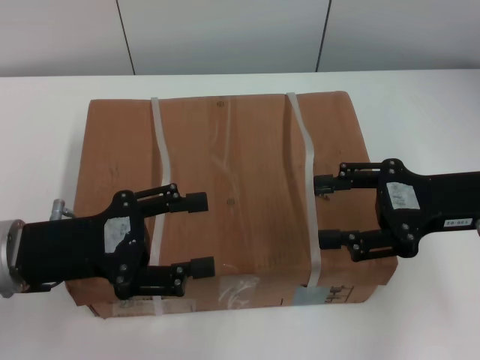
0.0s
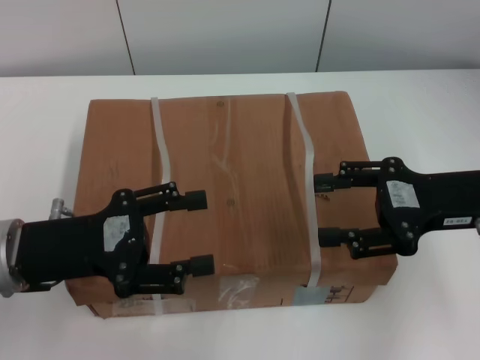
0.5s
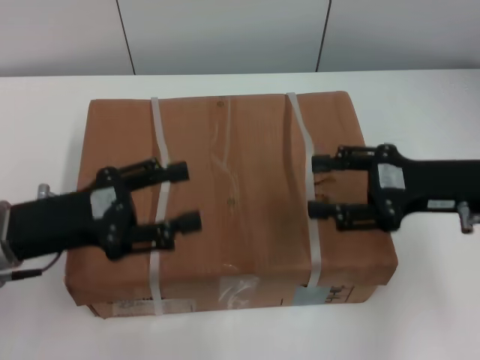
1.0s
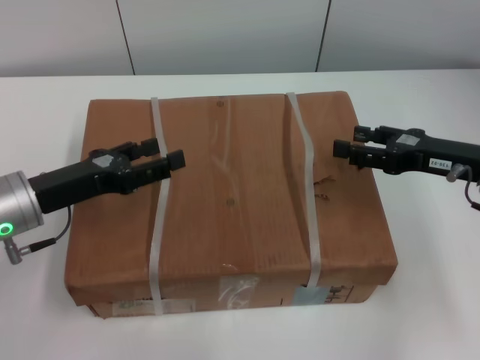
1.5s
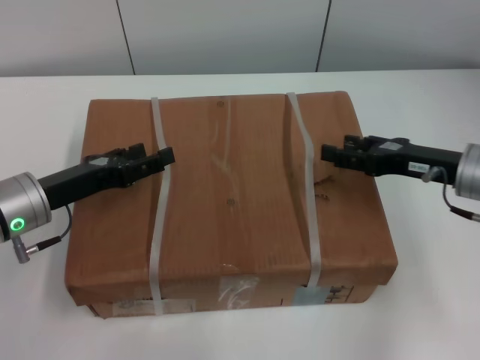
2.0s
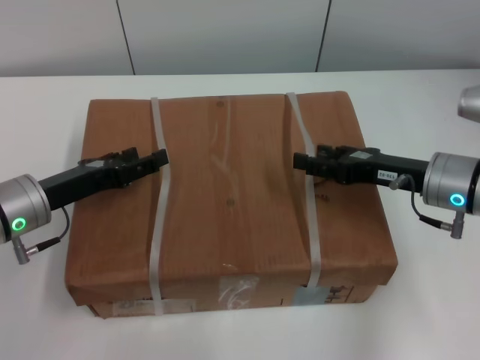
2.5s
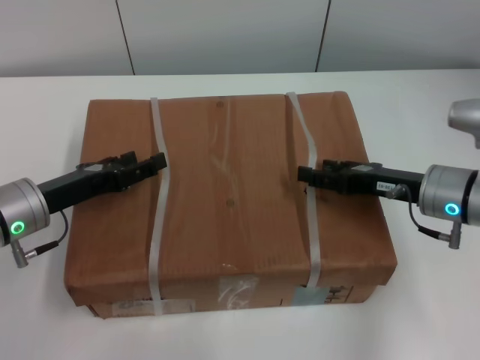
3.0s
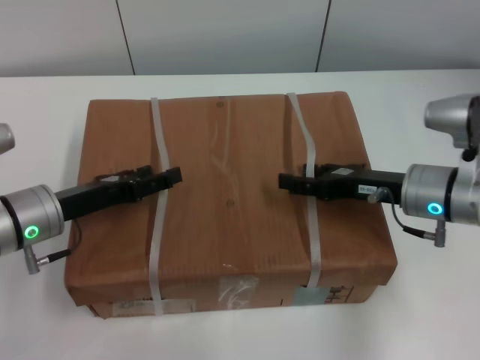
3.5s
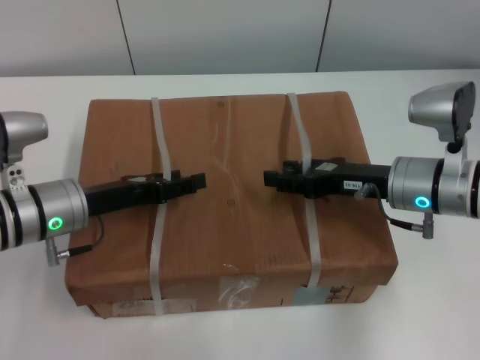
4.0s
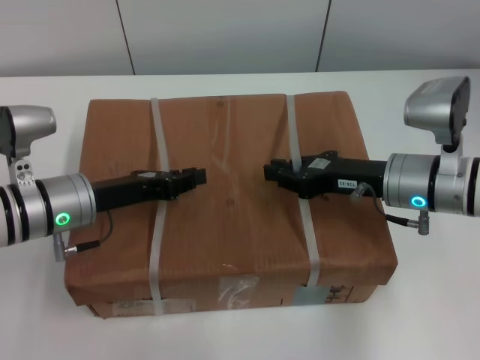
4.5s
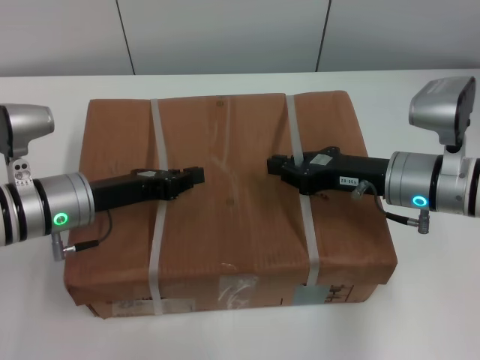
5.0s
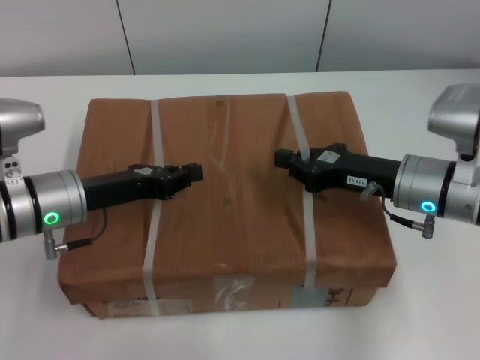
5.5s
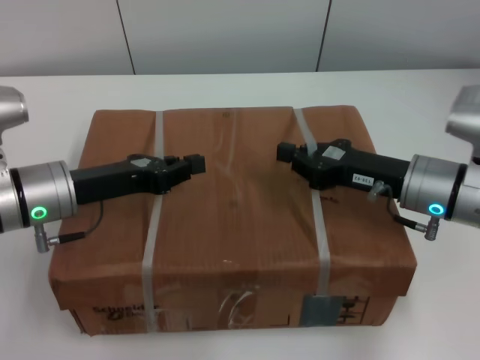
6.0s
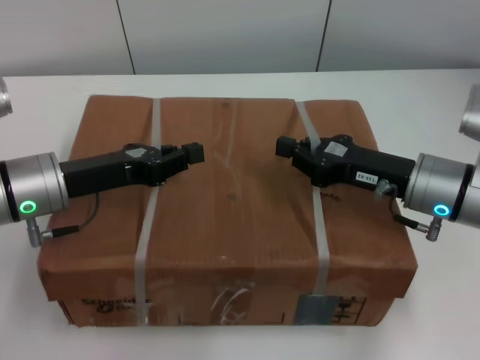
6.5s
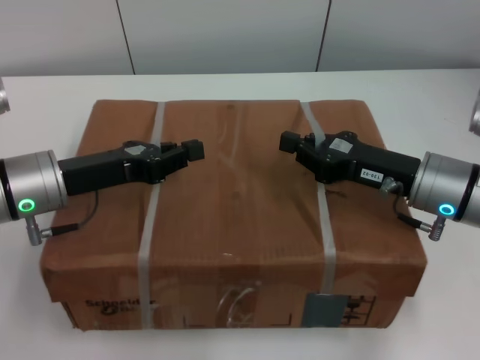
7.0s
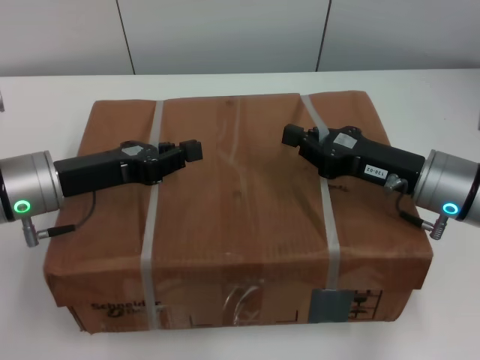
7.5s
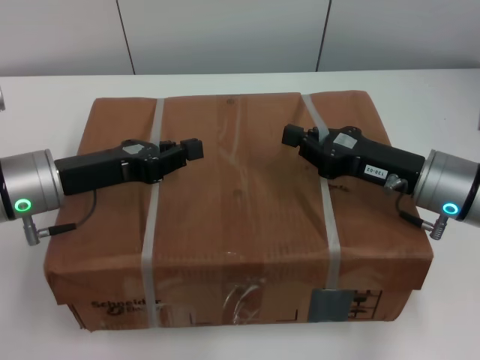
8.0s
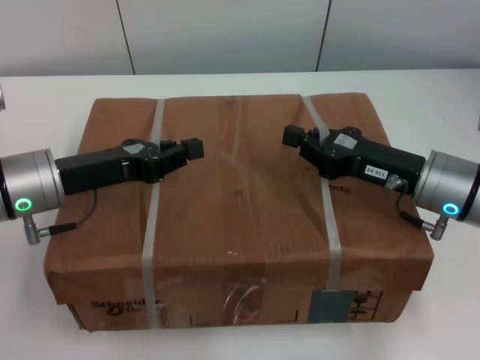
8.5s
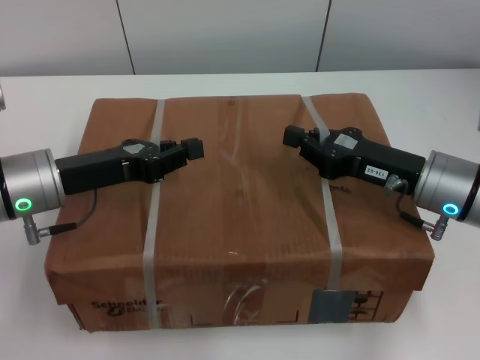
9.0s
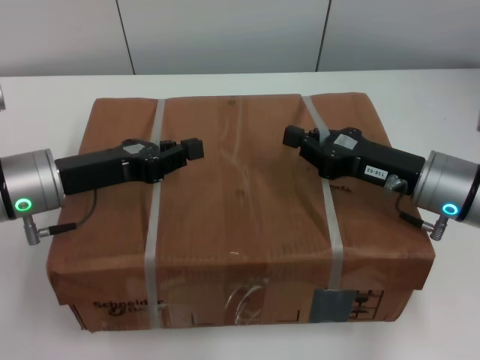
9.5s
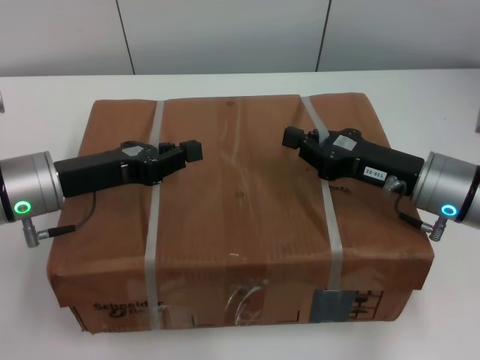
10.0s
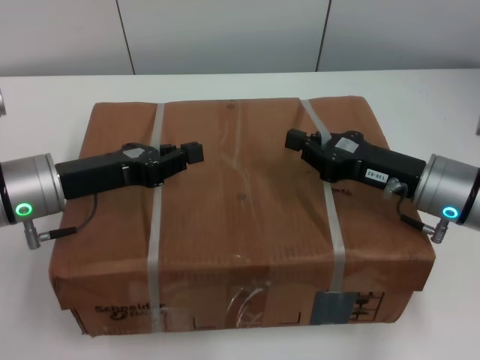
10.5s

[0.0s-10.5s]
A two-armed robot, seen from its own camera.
Task of the whole recording: pick up the box from the table with both arms.
Step, 0.5s to 4.5s: Grasp the bandage with left gripper.
Step, 0.5s to 4.5s: Grasp the bandage with right gripper.
Step, 5.0s to 7.5s: Lift the box with left gripper.
Step, 5.0s to 7.5s: Lift the box with right gripper.
0.0s to 2.0s: The left gripper moves forward, approximately 5 cm. Meanwhile the right gripper heads downward, covering about 5 cm.
2.0s to 4.0s: The right gripper travels to the left by roughly 5 cm.
4.0s to 6.5s: The right gripper closes; the left gripper closes its fingers.
6.5s to 10.5s: Neither gripper changes place.
